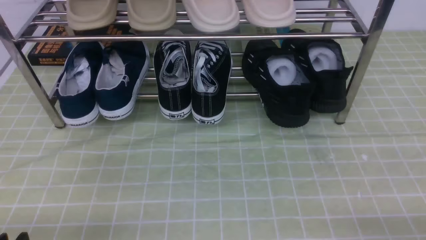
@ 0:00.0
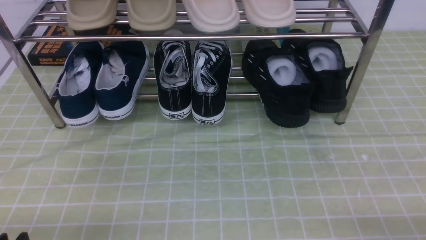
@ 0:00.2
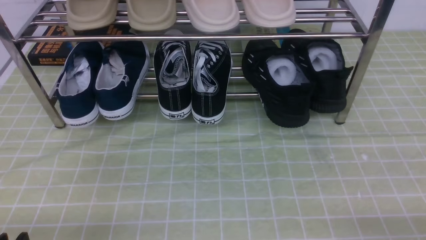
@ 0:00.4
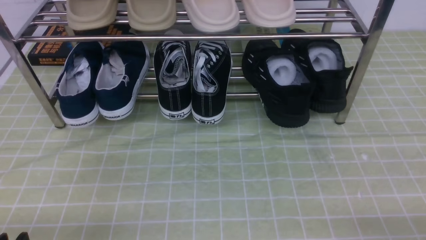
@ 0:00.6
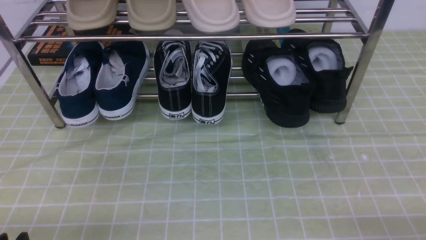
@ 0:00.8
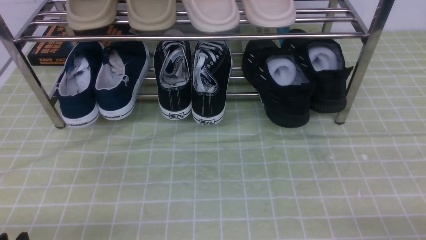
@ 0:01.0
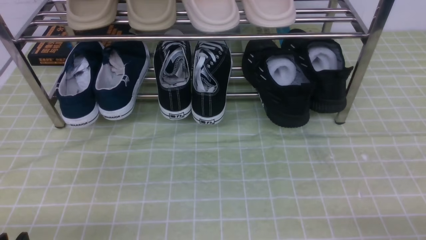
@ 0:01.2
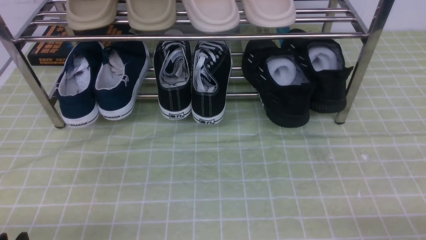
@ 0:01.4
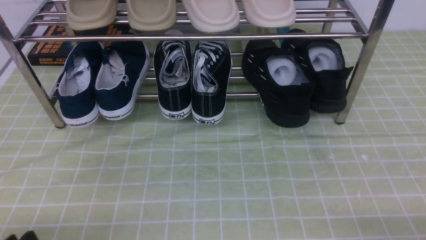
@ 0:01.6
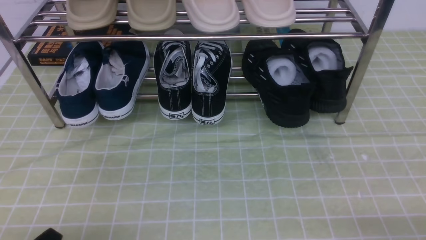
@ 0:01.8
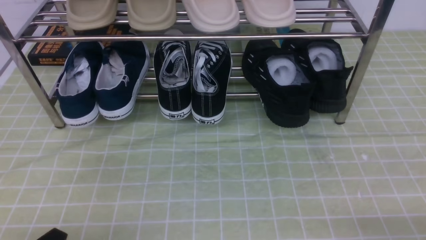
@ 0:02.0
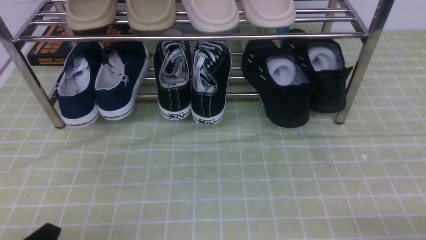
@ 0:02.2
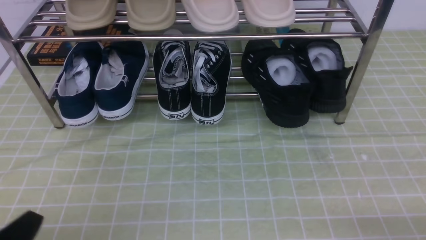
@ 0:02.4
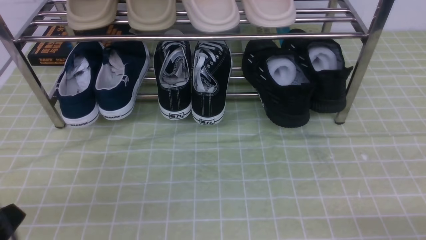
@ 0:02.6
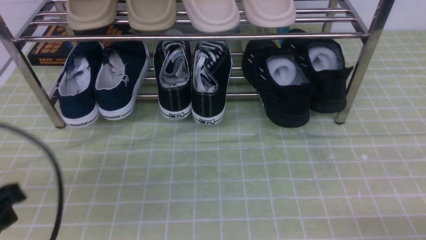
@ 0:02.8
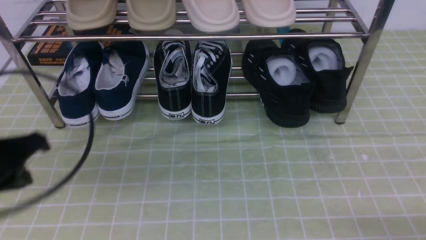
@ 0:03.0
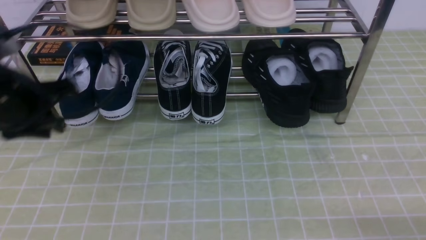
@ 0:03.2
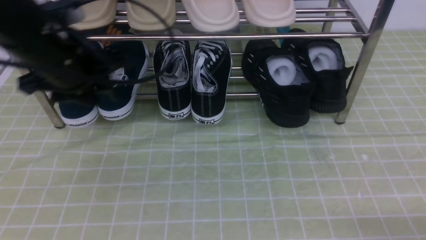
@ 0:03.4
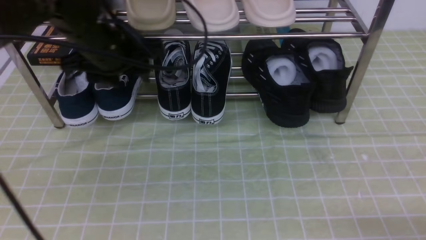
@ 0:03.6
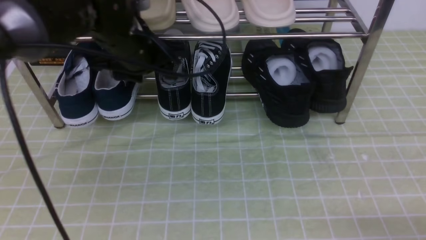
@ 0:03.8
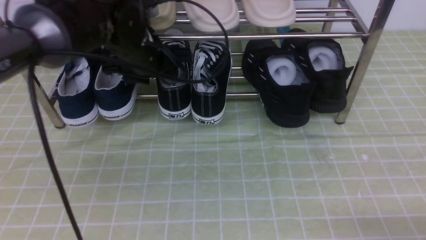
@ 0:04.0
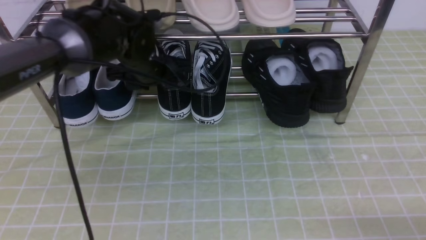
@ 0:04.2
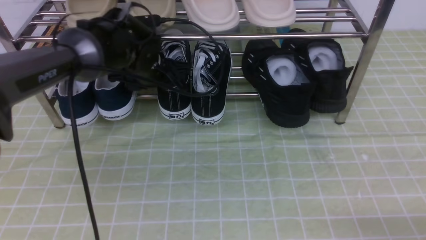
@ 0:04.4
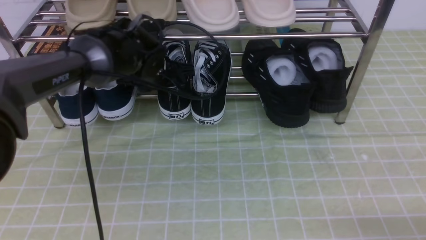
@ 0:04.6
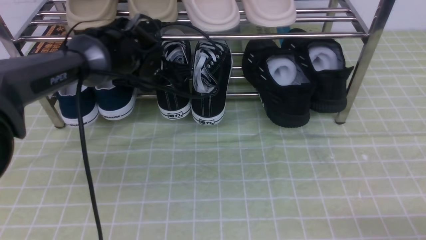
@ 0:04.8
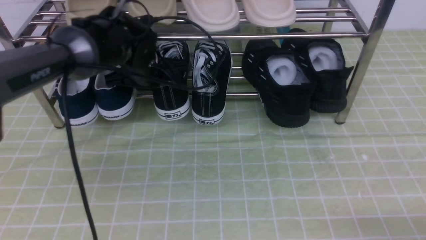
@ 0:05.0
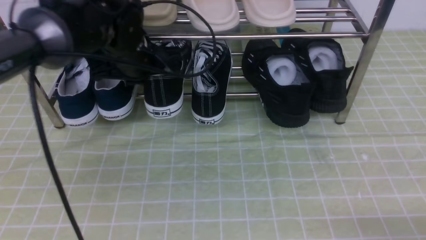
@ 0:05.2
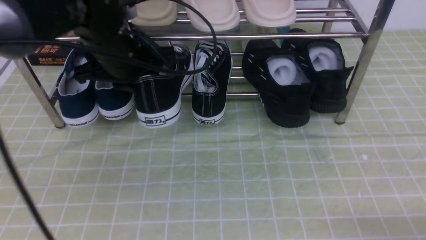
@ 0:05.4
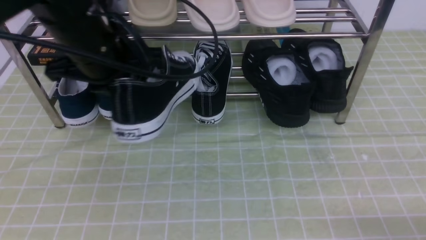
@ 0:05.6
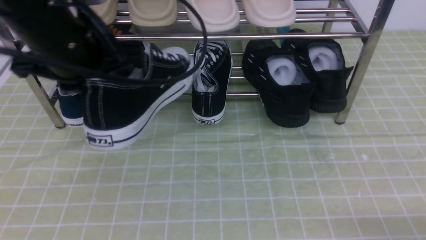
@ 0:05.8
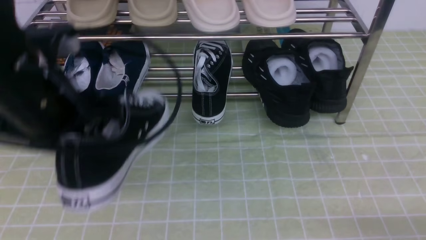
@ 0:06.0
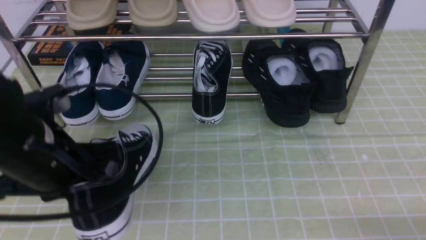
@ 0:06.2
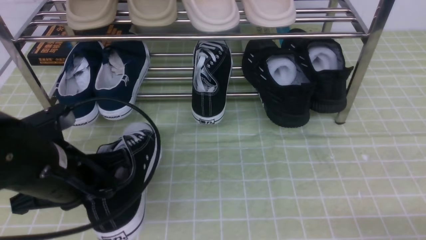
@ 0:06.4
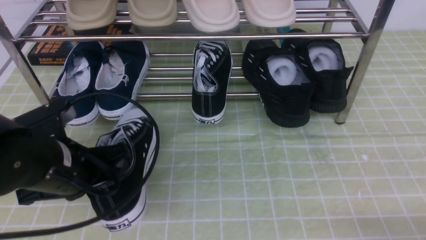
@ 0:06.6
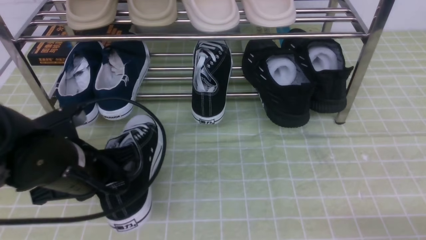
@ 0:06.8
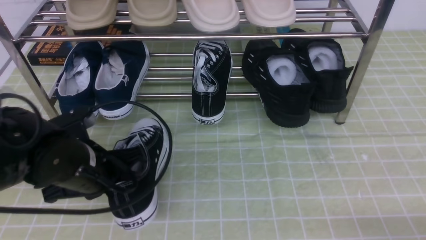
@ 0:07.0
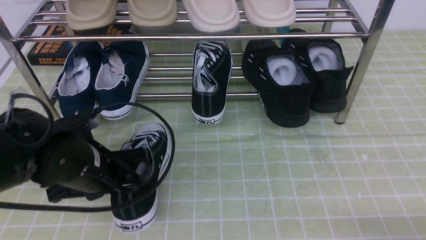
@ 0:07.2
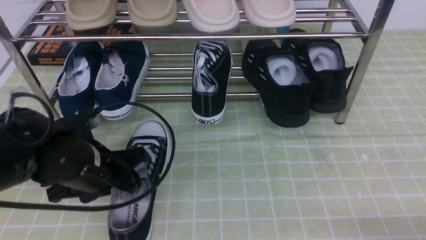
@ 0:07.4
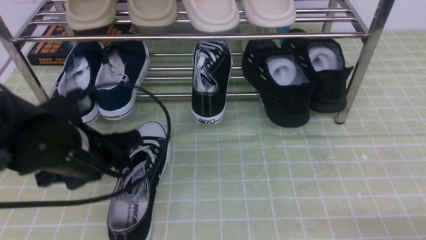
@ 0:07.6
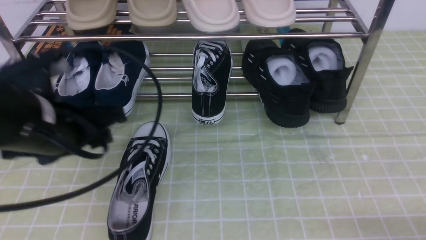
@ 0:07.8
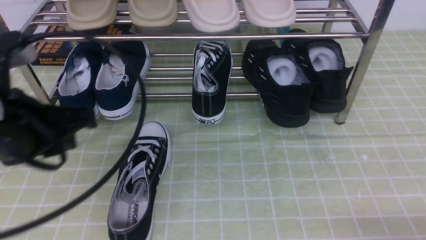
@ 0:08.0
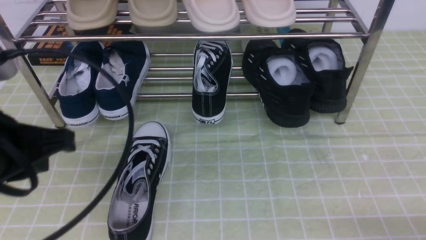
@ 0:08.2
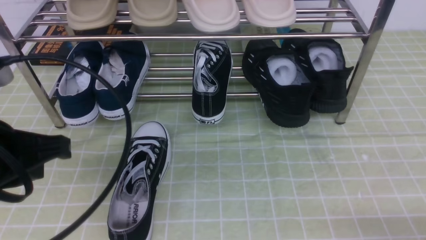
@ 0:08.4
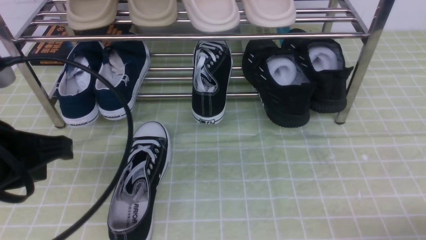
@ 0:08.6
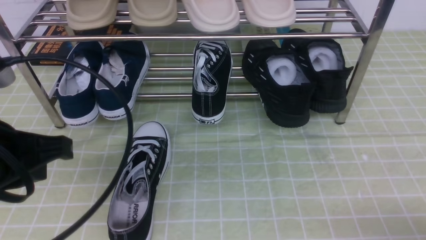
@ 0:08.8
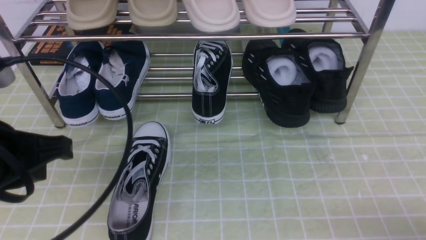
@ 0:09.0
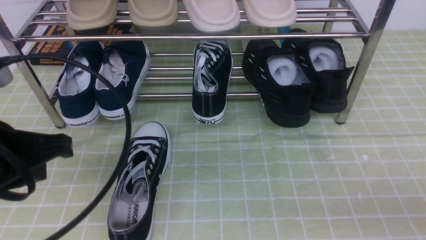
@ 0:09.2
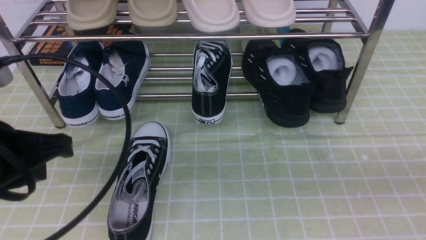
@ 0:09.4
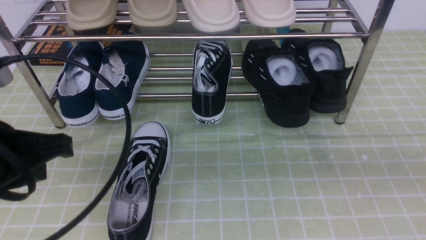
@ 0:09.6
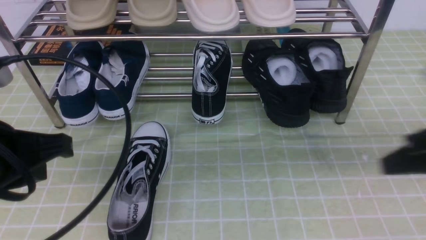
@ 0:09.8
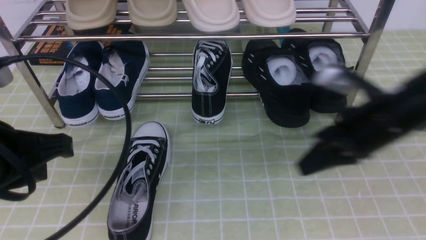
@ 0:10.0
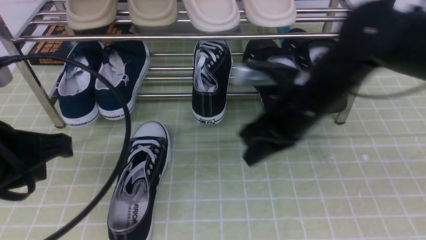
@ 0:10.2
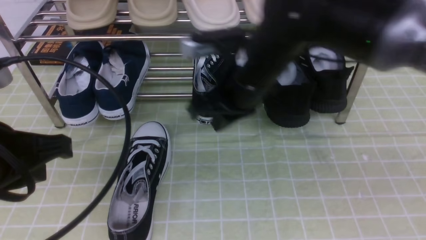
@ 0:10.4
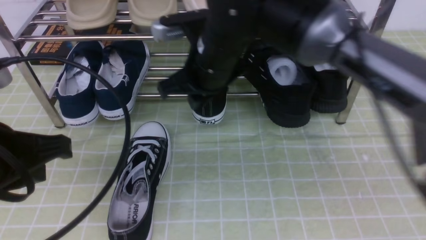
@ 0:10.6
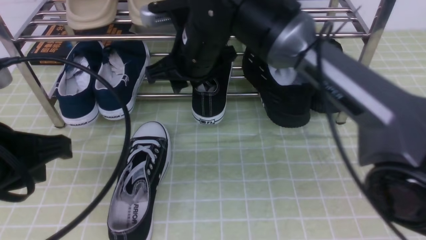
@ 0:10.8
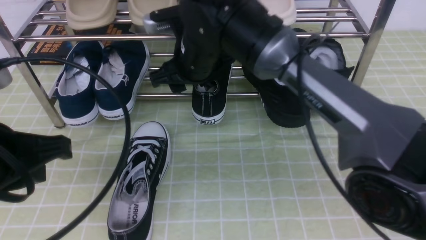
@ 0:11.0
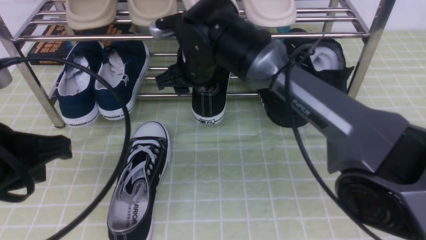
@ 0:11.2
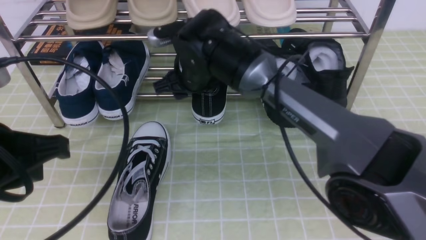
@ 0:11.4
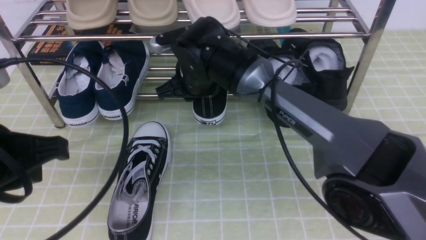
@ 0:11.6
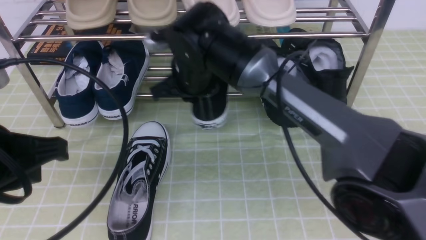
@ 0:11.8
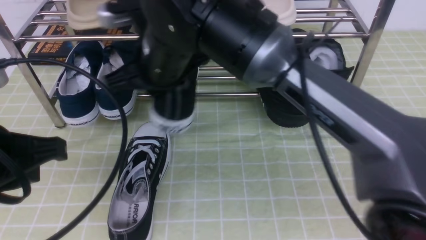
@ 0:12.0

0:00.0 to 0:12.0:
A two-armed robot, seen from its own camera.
Step, 0:00.0 to 0:04.8: use the left arm to clamp a shoe in the middle of the shoe rack.
Step, 0:05.0 to 0:08.0: Use your left arm to remove the clamped shoe from the shoe rack and put it down.
Step, 0:08.2 to 0:11.4: use the right arm to clamp a shoe in the middle of the shoe rack.
0:01.6 to 0:03.0: The left gripper goes approximately 20 cm upward and forward, and closes its fingers.
0:03.0 to 0:04.4: The left gripper heads forward and to the right, covering some 25 cm, and opens up.
0:04.4 to 0:06.0: The left gripper travels backward and upward by roughly 20 cm, and closes its fingers.
0:06.0 to 0:07.6: The left gripper shifts some 10 cm downward, and opens up.
0:07.6 to 0:09.0: The left gripper shifts roughly 10 cm upward and backward, and closes up.
0:09.0 to 0:10.4: The right gripper travels to the left and forward by about 40 cm, and closes.
0:10.4 to 0:12.0: The right gripper travels to the left by about 10 cm, reaches about 10 cm forward, then returns, and opens, then closes again.

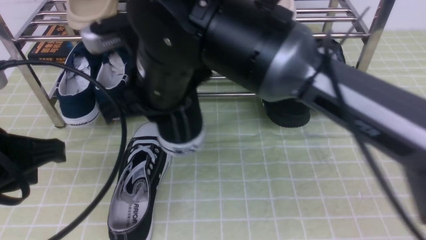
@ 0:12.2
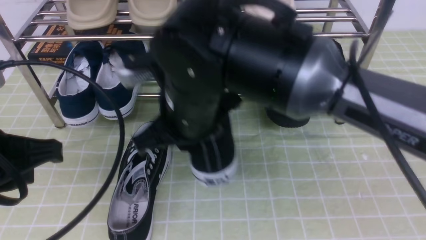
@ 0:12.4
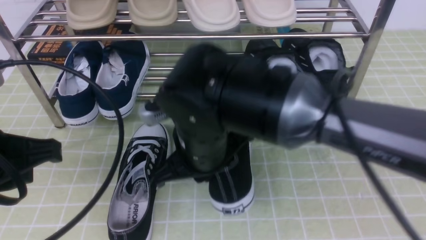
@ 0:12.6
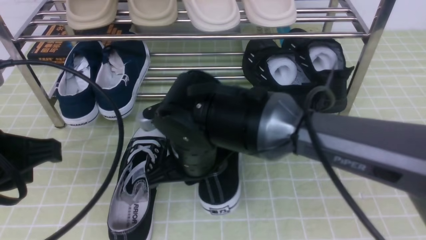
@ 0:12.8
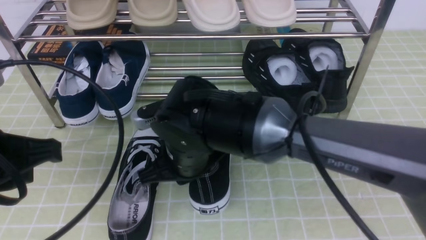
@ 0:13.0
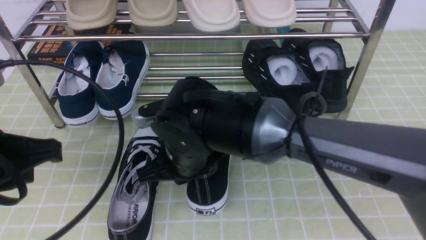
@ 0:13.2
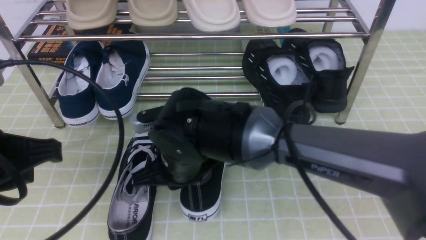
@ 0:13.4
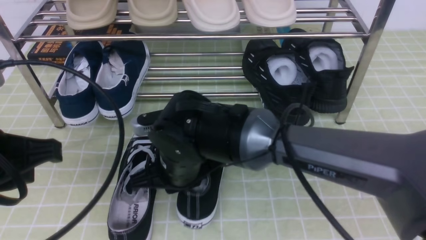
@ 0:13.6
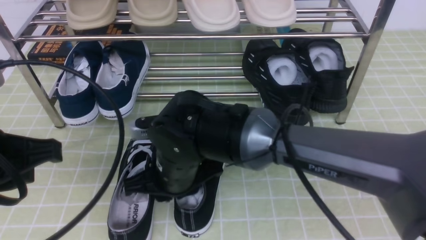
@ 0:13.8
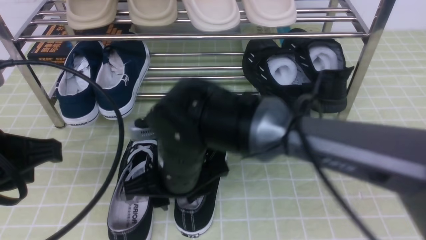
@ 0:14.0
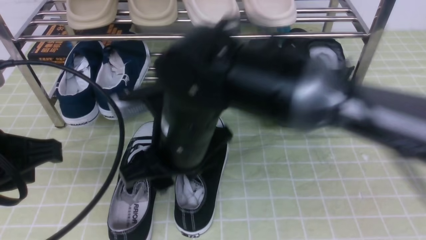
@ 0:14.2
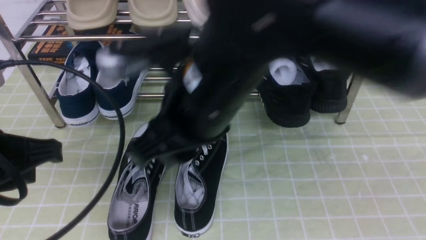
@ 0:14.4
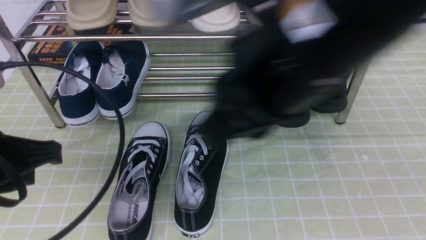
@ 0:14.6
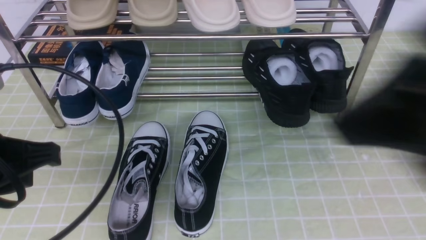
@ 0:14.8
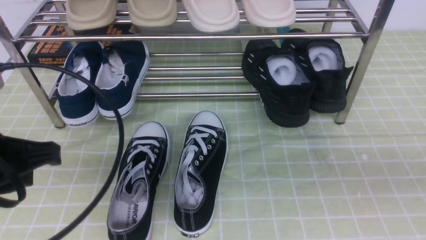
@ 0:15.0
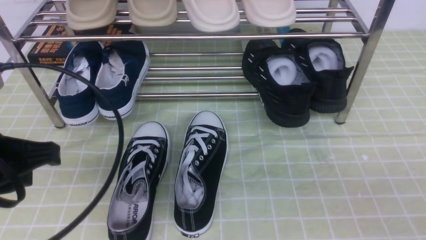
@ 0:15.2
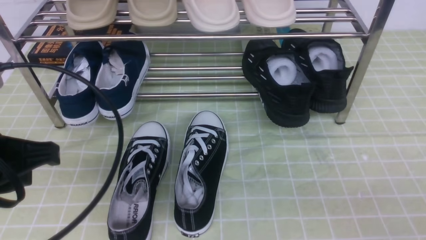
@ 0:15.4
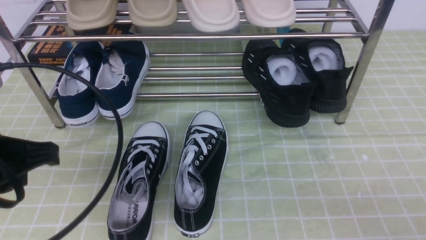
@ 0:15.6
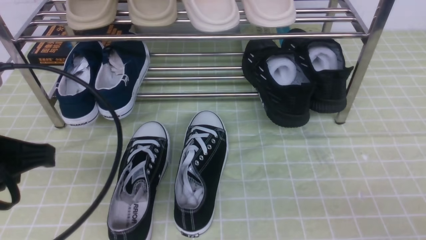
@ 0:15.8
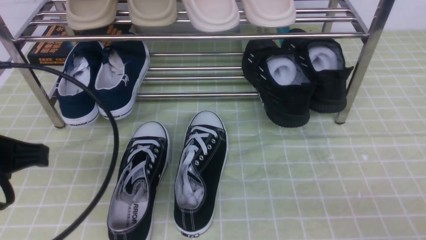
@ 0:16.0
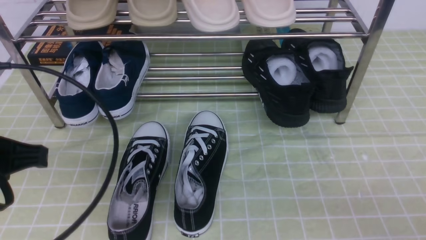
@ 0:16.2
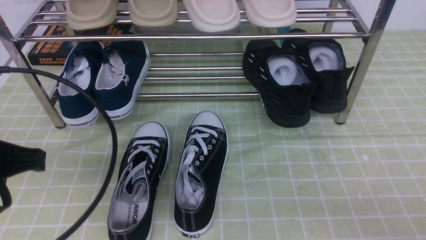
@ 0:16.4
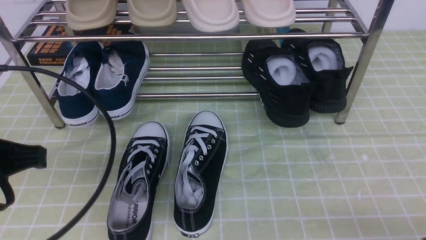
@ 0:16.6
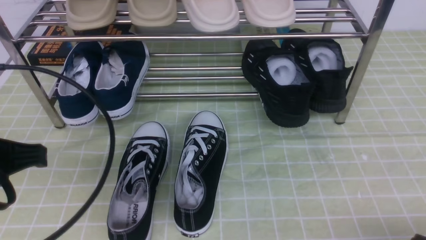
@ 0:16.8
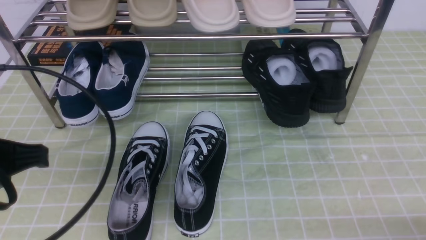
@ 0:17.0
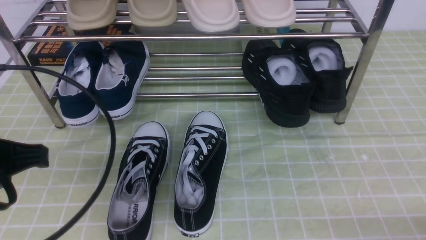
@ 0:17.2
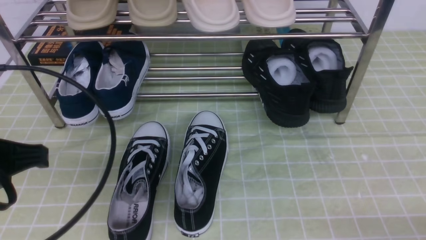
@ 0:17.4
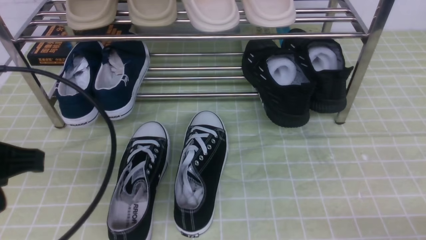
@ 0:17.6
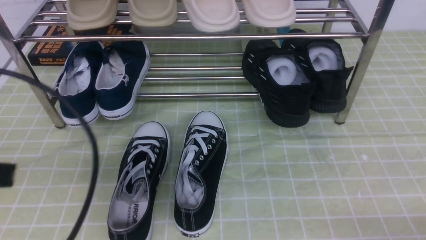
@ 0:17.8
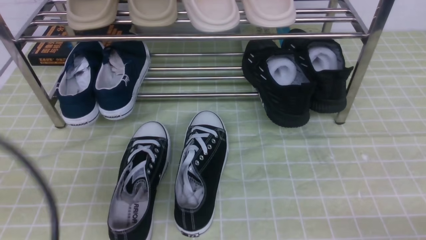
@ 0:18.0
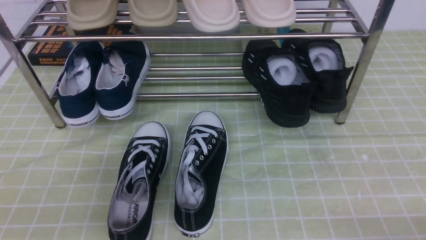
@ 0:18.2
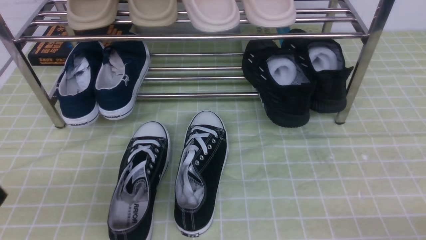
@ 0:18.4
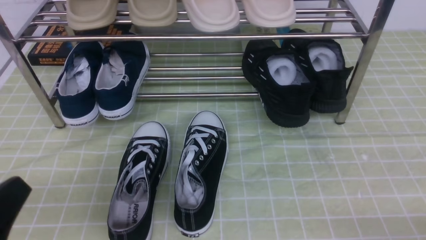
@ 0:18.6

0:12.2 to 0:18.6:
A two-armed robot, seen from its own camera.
Step, 0:12.2 to 0:14.4: use the right arm to take out the clamped shoe from the shoe rack and put it down.
0:12.2 to 0:13.8: The right gripper travels downward by about 10 cm, and opens up.
0:13.8 to 0:15.4: The right gripper moves to the right and backward, about 40 cm, and closes.
0:17.0 to 0:18.6: The left gripper travels backward and downward by about 15 cm.
